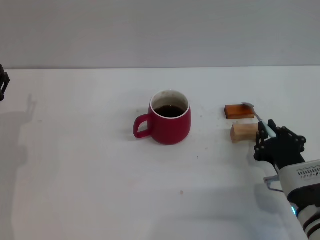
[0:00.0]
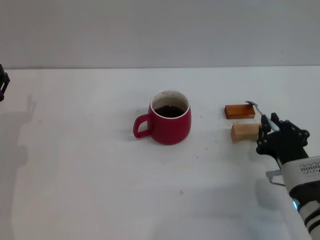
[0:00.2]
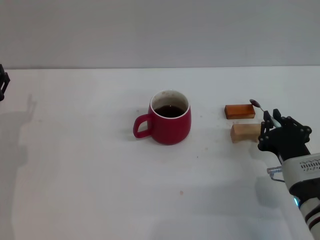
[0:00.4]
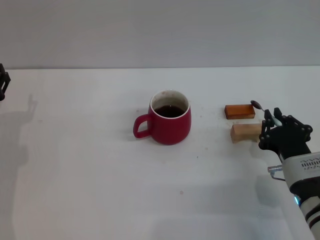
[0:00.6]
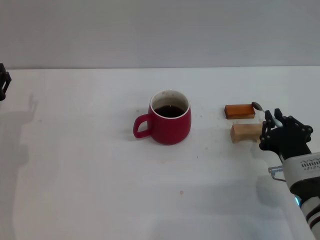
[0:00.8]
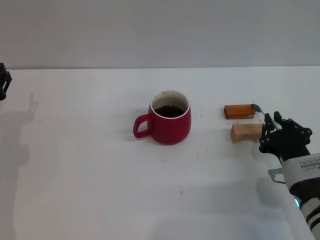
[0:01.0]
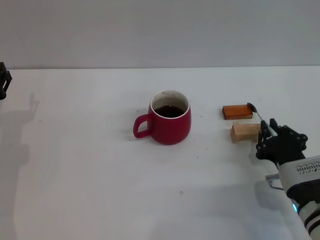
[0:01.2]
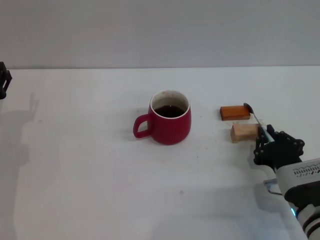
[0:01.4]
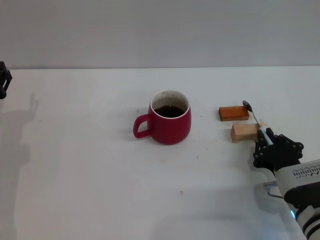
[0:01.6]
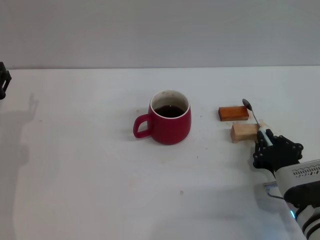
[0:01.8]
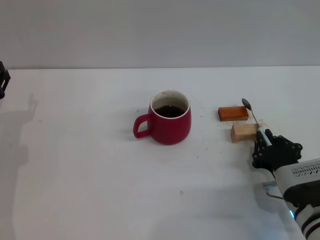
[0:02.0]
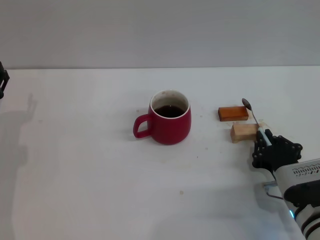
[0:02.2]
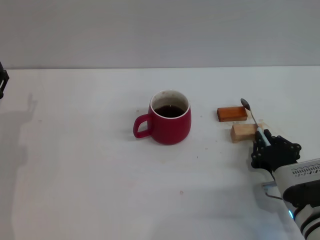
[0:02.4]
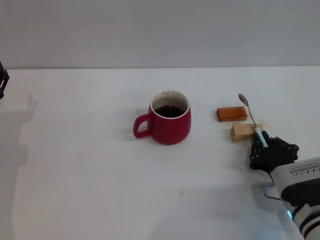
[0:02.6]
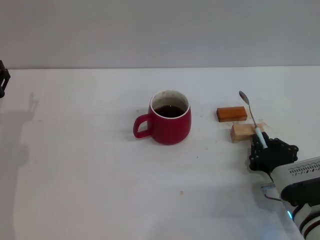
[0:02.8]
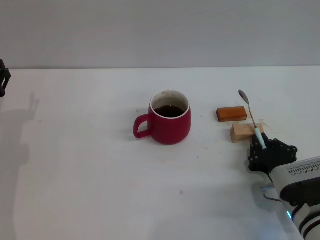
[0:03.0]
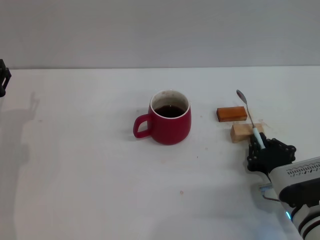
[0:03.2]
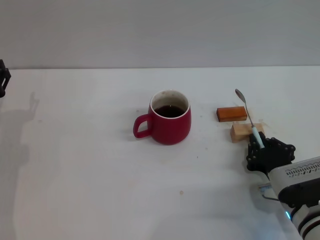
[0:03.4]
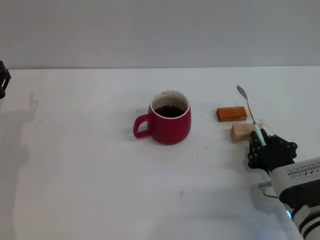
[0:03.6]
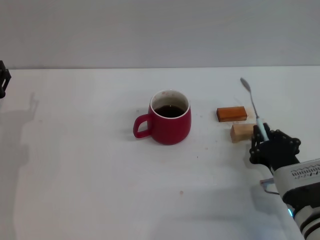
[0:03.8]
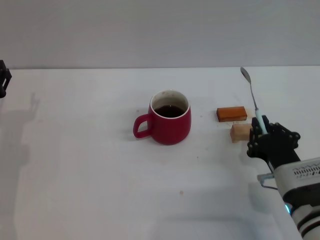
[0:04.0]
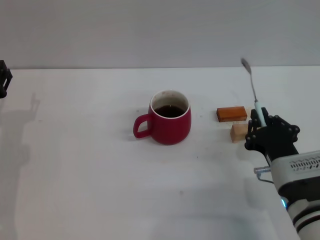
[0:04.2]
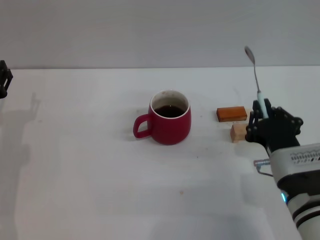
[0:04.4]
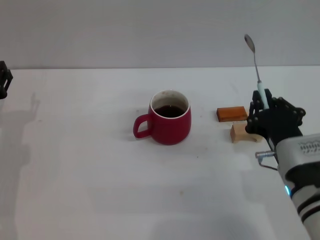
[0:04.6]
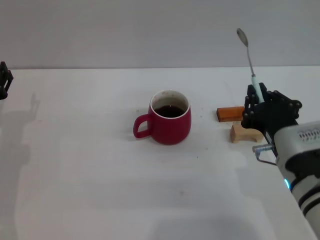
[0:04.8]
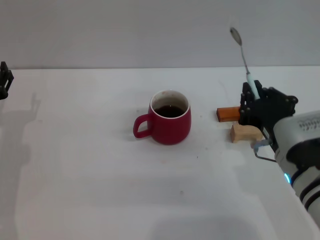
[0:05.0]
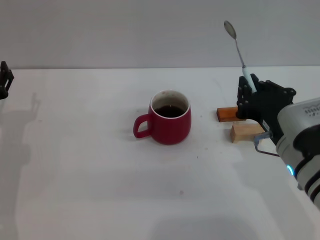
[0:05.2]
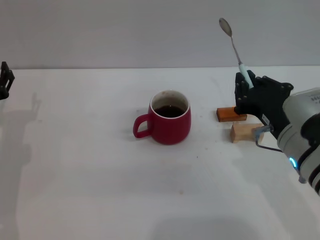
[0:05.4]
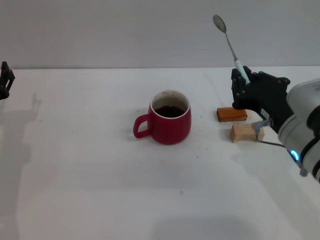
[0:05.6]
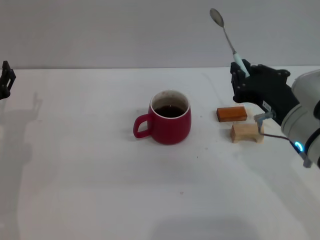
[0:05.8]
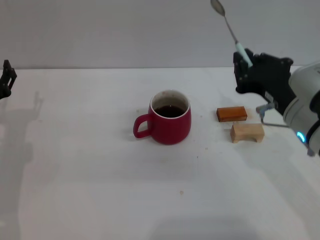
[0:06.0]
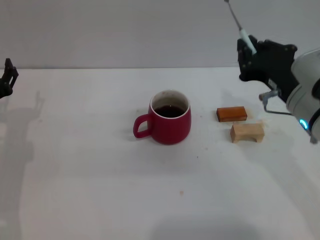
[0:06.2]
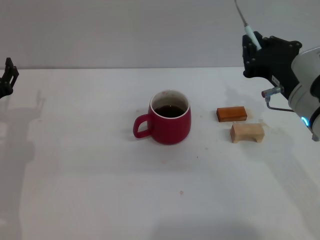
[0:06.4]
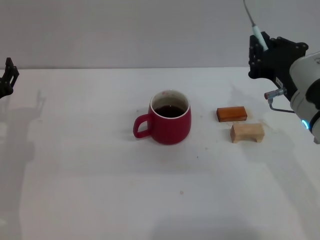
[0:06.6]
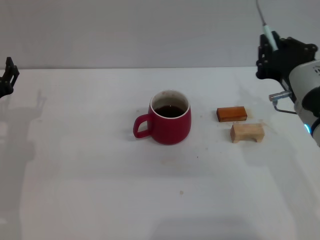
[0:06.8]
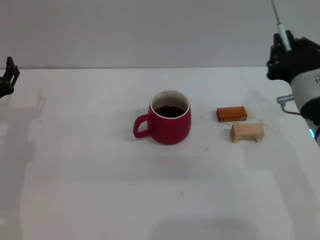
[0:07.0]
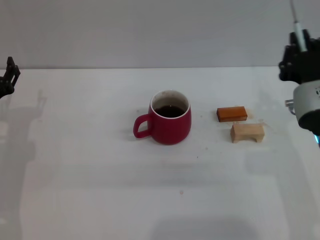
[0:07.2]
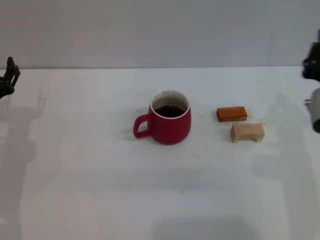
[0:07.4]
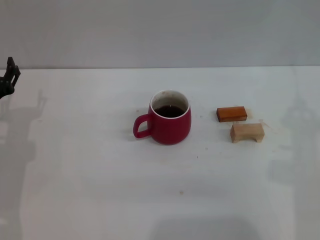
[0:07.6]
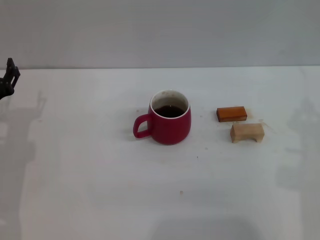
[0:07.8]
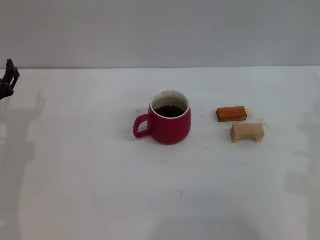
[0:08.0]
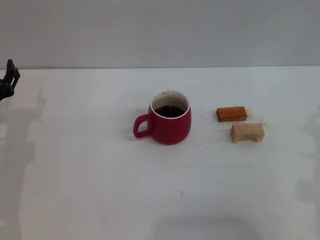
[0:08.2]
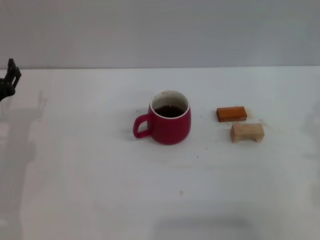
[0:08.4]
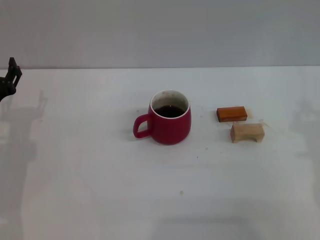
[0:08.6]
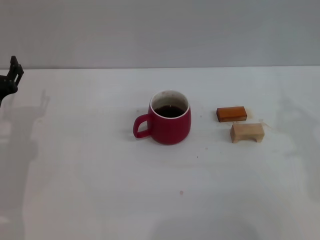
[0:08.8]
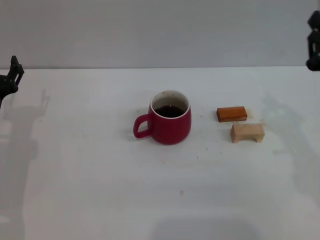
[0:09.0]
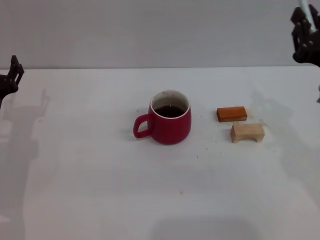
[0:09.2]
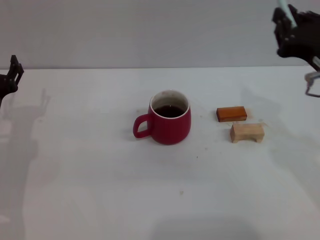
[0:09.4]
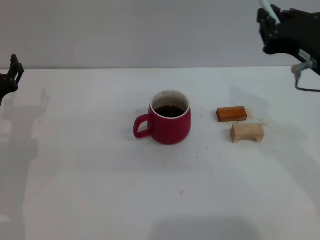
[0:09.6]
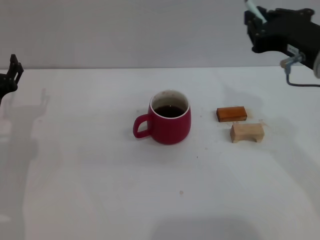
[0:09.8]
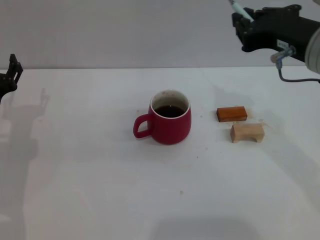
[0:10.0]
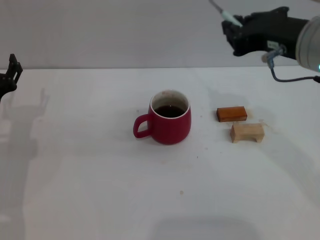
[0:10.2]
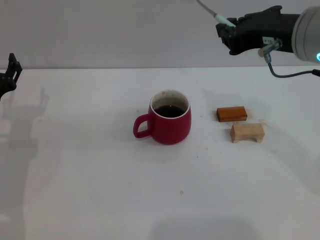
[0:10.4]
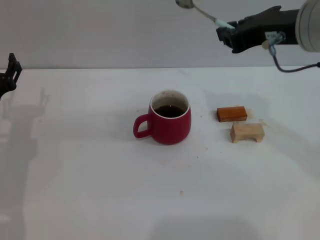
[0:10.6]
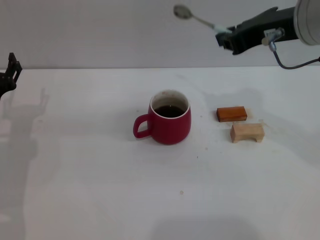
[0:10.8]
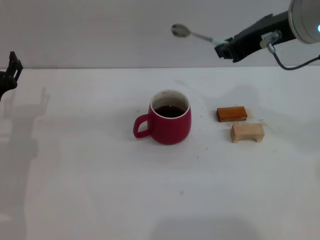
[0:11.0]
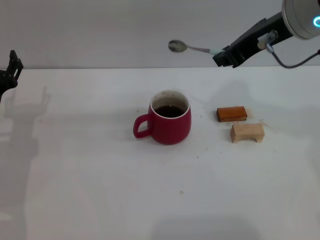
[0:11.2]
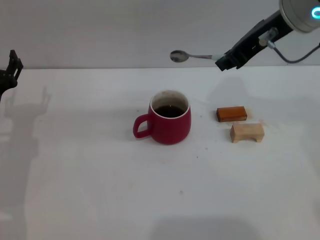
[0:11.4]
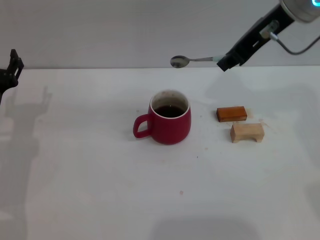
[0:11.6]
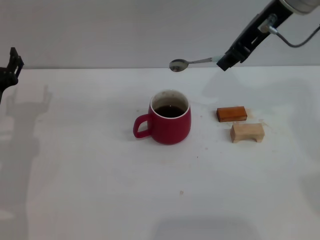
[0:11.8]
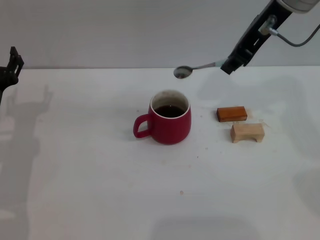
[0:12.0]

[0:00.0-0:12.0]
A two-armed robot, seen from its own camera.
Task of the whole recording: Move the red cup to the center, lift the blue spoon, stir it three times in the cup, and put the spoon into the cup.
Step, 0.0 to 4.8 s: Pick up the spoon with the right gripper.
0.0 to 1.6 s: Neither gripper changes place.
1.6 to 3.0 s: Neither gripper changes place.
3.0 to 4.4 s: The right gripper travels upward by approximately 5 cm.
4.4 to 6.0 s: The right gripper shifts some 10 cm upward.
9.0 to 10.4 s: The right gripper heads upward, to the left and forward, covering about 15 cm.
10.4 to 12.0 s: The right gripper heads forward, covering some 10 cm.

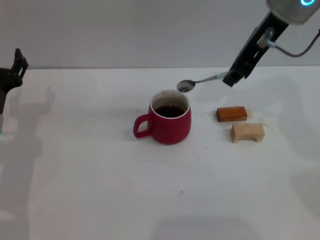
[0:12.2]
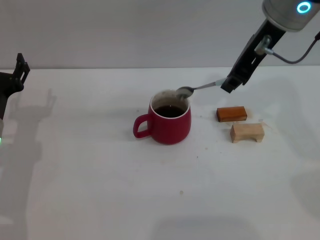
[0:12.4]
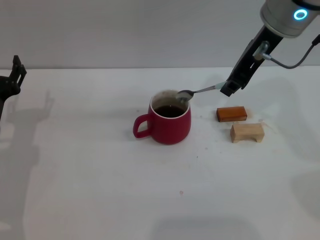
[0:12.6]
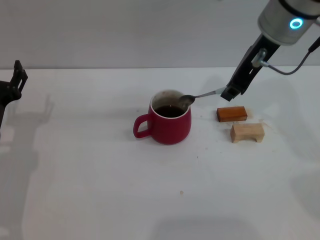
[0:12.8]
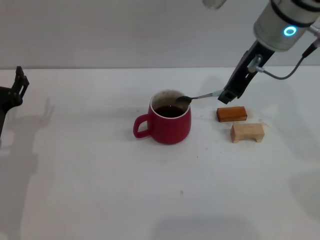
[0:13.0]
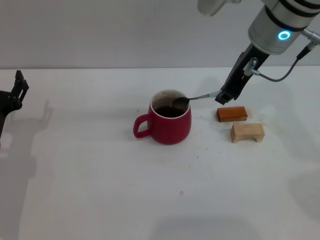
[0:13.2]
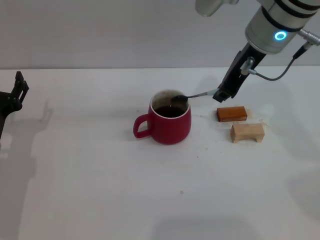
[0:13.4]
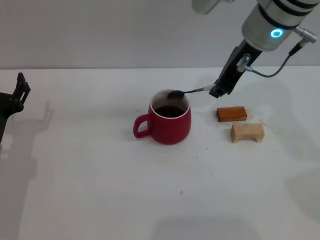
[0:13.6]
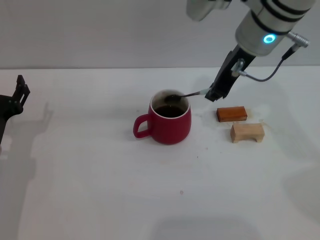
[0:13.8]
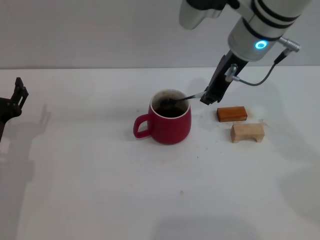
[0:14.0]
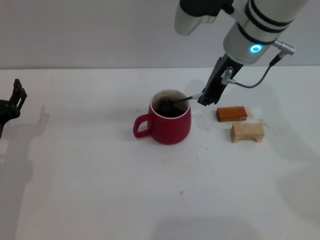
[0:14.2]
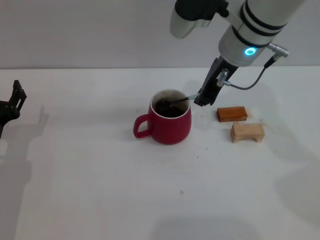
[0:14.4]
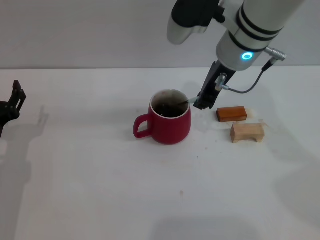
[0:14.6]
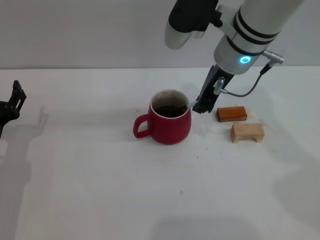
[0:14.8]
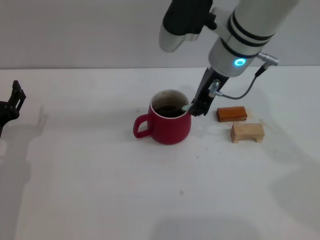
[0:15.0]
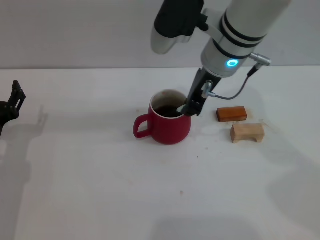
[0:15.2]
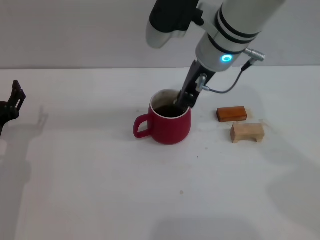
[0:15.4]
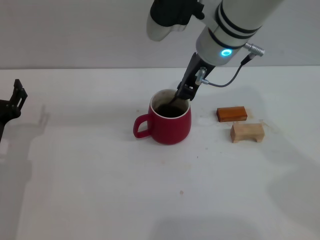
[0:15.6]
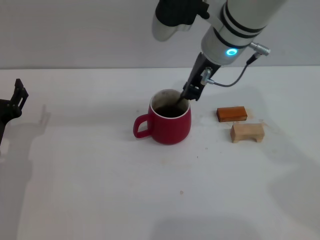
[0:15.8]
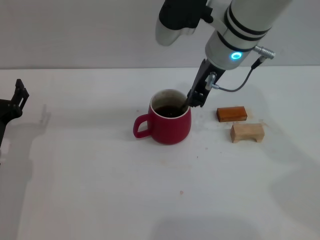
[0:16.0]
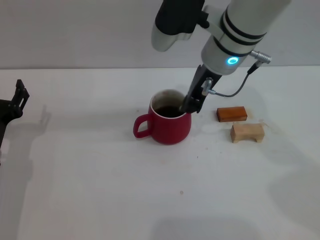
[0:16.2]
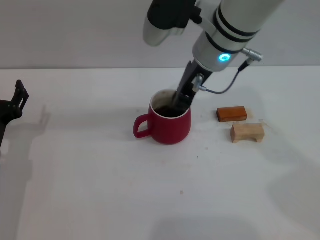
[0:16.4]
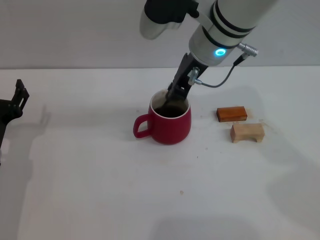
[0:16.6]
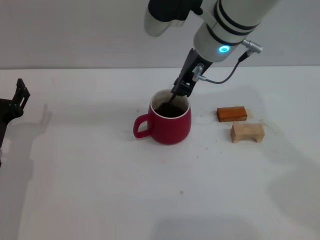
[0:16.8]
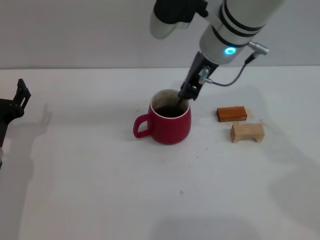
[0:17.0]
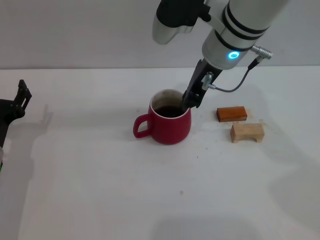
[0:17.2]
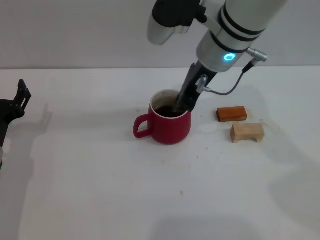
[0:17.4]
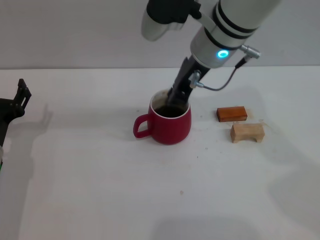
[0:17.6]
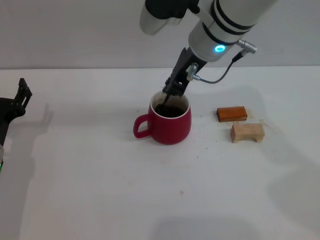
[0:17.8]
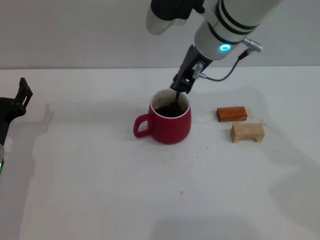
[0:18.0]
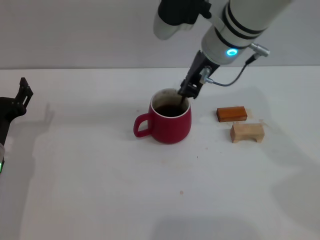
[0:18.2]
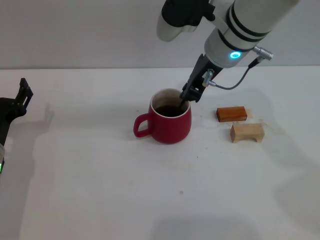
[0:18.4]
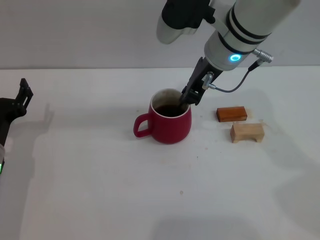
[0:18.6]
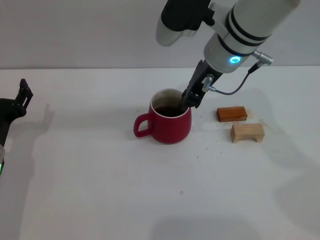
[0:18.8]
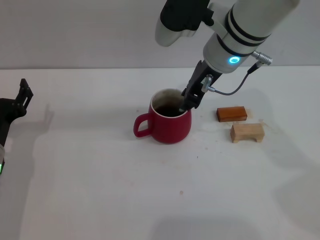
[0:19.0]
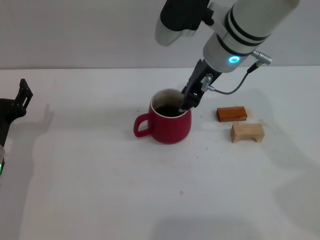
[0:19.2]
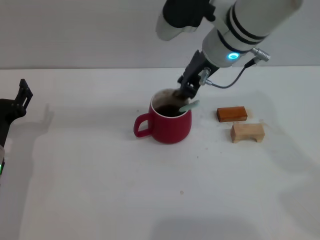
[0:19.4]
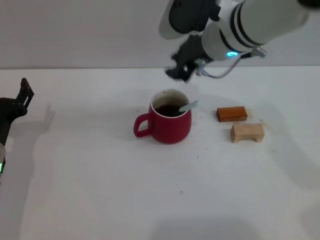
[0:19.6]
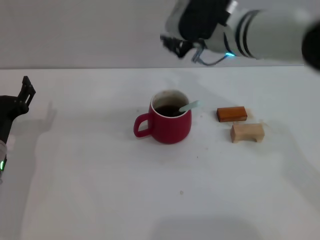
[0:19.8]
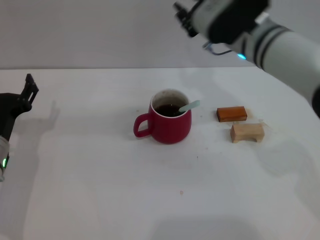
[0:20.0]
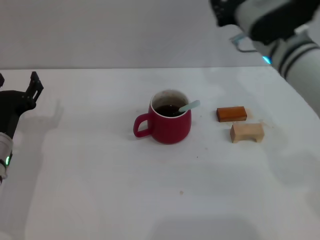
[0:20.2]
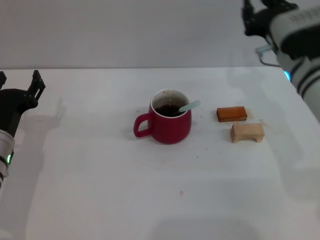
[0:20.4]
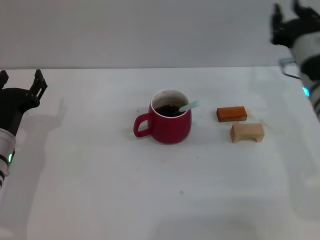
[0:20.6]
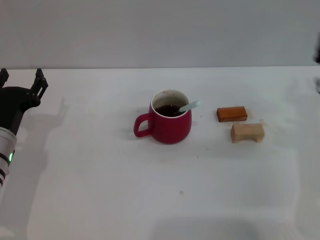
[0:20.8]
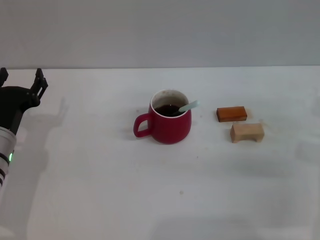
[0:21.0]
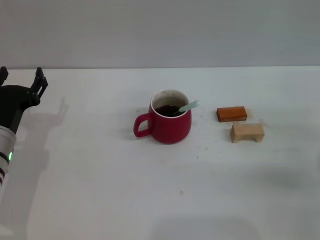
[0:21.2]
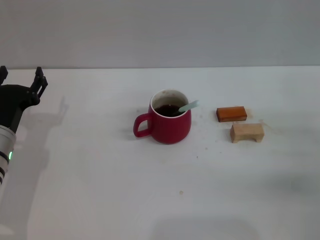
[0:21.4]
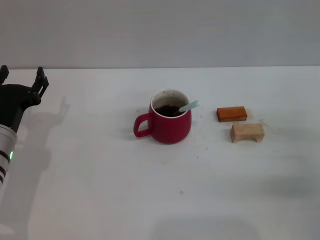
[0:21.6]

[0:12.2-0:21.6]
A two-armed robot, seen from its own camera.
Task of the whole recording: Move the red cup to the center, lift the blue spoon, stir it three times in the cup, and put the spoon into the cup.
Step, 12.2 to 19.4 s: Stir the coffee in the cup with the right gripper.
12.2 to 13.8 s: The right gripper travels downward by some 5 cm.
13.8 to 15.4 s: The right gripper shifts by some 5 cm.
15.4 to 17.0 s: The two grippers keep their place.
17.0 to 18.4 s: The grippers stay close to where they were, moving slightly.
18.4 to 20.0 s: The right gripper ends up about 5 cm from where it was.
20.0 to 21.6 s: The right gripper is displaced to the right, downward and backward by some 30 cm.

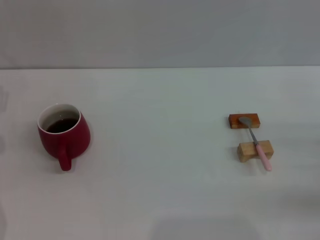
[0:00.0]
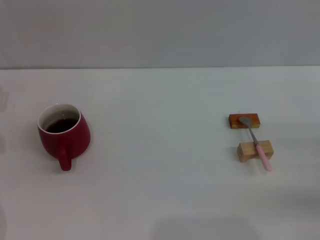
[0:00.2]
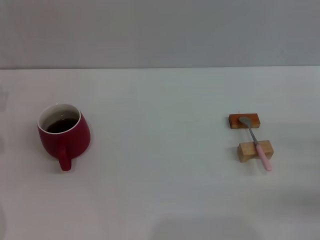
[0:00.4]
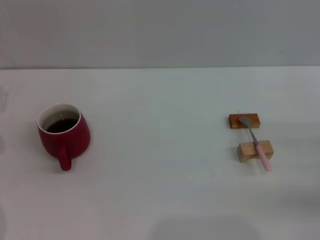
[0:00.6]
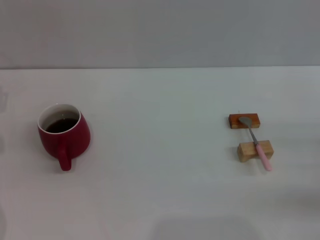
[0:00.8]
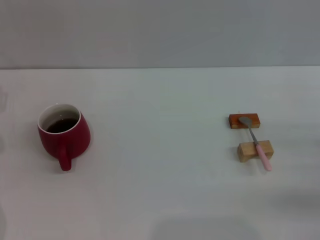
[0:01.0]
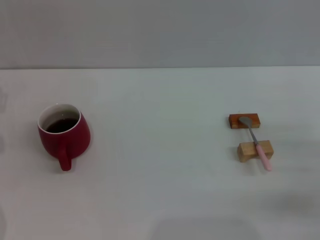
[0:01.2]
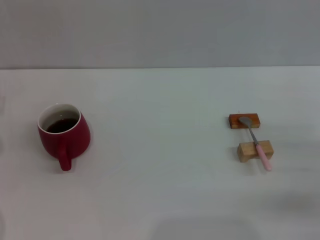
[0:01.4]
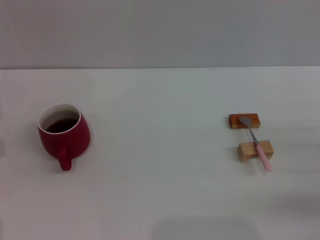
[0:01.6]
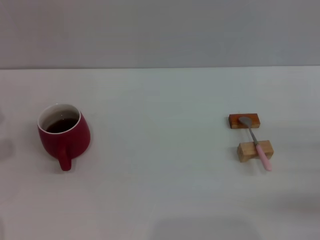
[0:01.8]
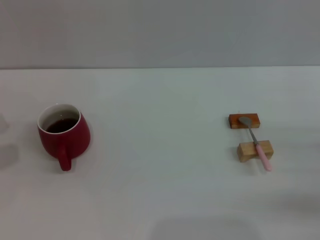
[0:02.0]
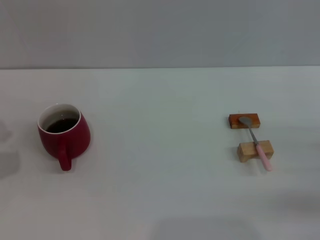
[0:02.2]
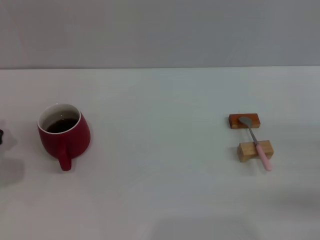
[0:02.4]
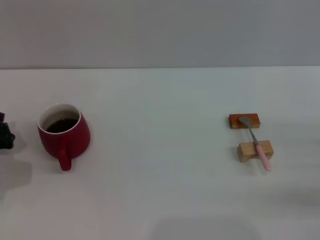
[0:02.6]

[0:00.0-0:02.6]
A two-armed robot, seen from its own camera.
Task of the whole recording: Move the red cup to the center, lift the pink spoon, stir it three times in the cup, and put the spoon into the cup.
1.2 to 2.6 s: The left gripper heads downward, covering approximately 5 cm, and closes its fingers.
